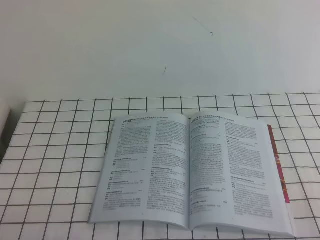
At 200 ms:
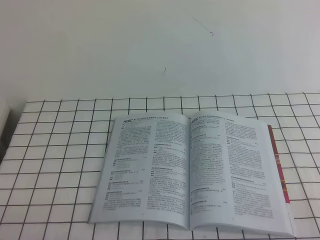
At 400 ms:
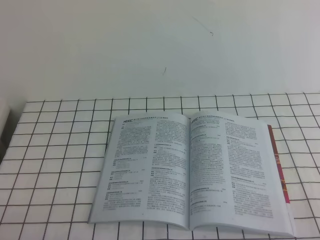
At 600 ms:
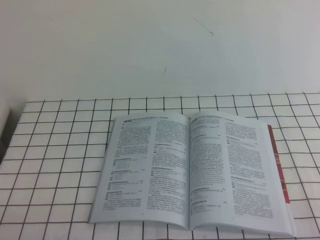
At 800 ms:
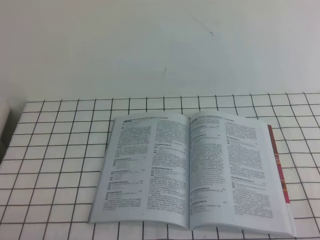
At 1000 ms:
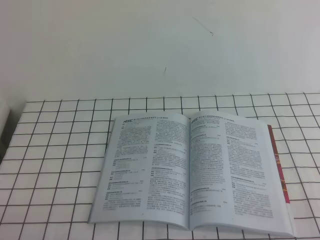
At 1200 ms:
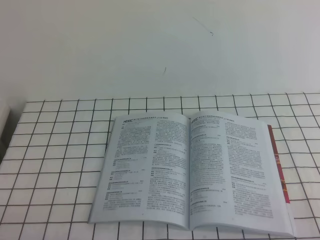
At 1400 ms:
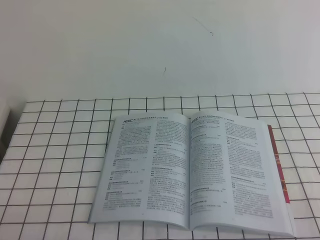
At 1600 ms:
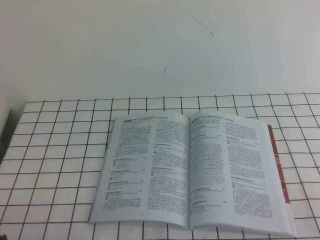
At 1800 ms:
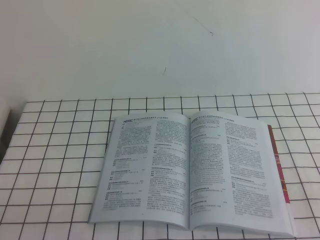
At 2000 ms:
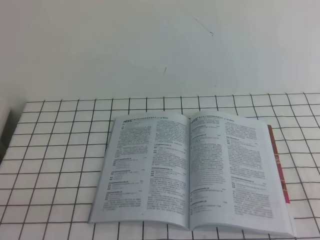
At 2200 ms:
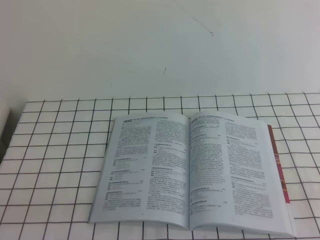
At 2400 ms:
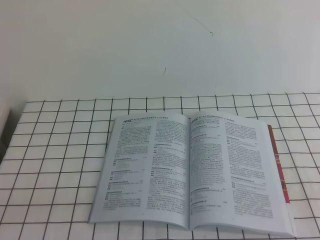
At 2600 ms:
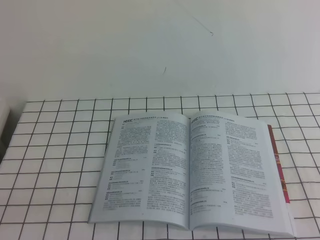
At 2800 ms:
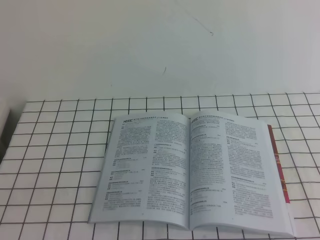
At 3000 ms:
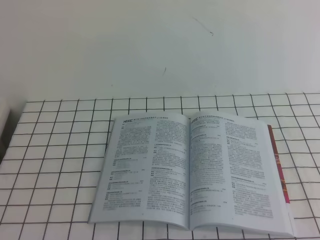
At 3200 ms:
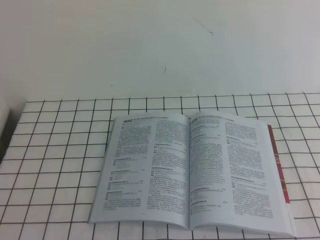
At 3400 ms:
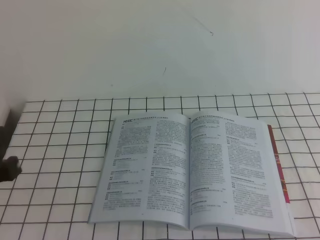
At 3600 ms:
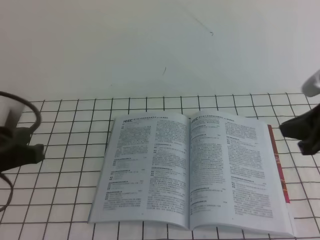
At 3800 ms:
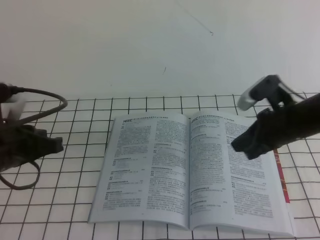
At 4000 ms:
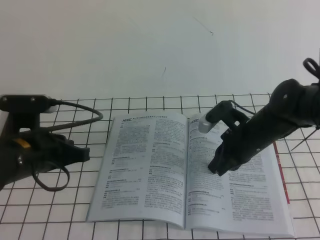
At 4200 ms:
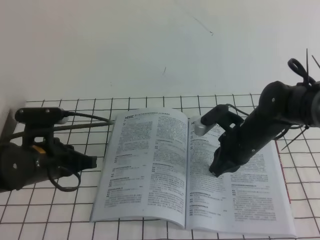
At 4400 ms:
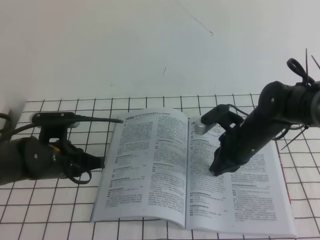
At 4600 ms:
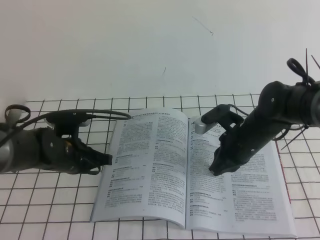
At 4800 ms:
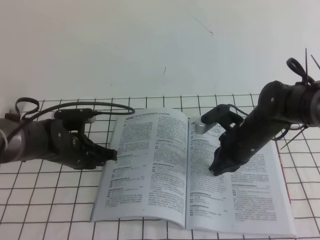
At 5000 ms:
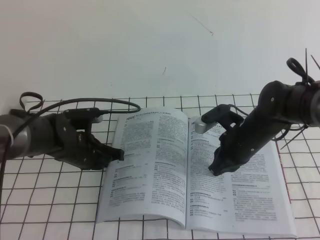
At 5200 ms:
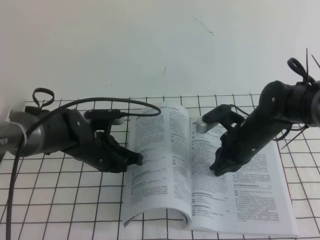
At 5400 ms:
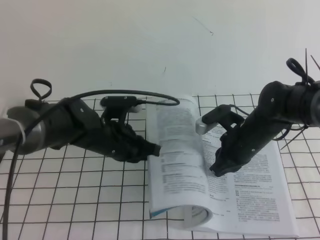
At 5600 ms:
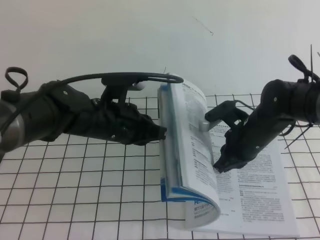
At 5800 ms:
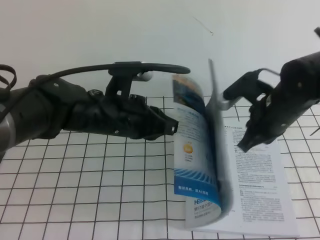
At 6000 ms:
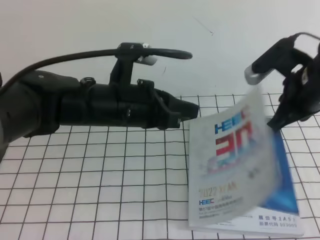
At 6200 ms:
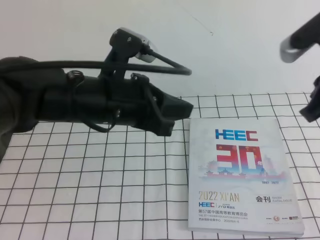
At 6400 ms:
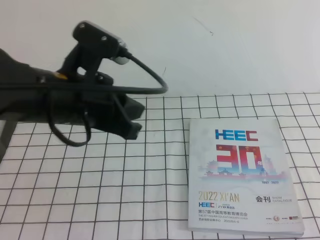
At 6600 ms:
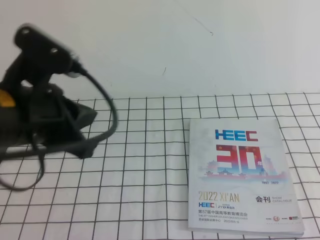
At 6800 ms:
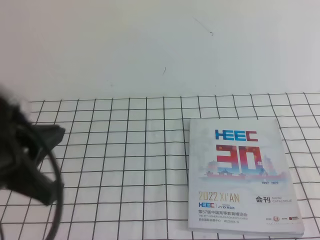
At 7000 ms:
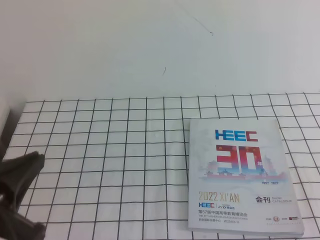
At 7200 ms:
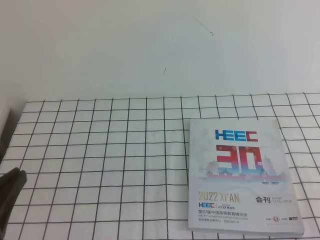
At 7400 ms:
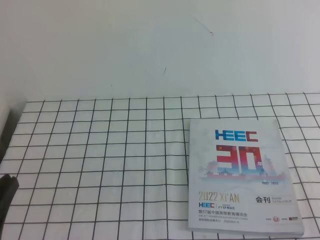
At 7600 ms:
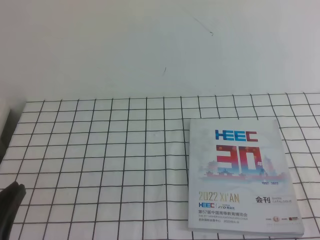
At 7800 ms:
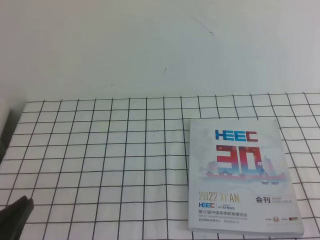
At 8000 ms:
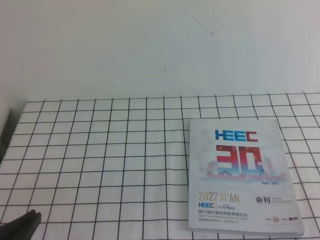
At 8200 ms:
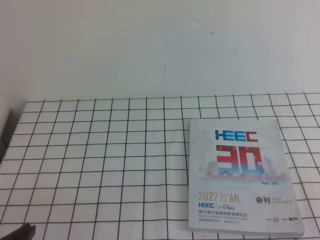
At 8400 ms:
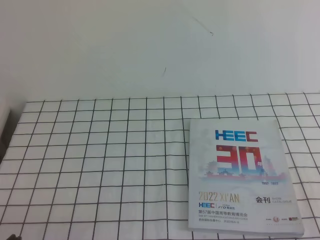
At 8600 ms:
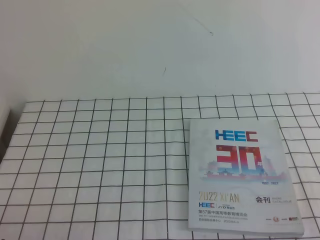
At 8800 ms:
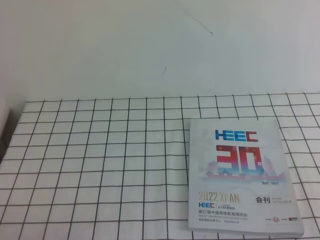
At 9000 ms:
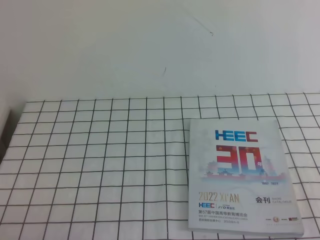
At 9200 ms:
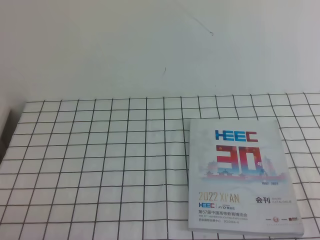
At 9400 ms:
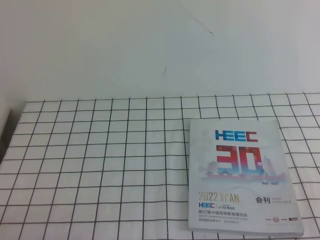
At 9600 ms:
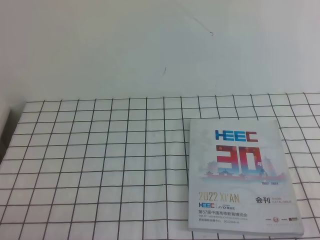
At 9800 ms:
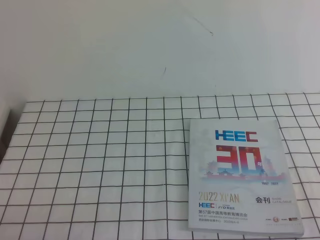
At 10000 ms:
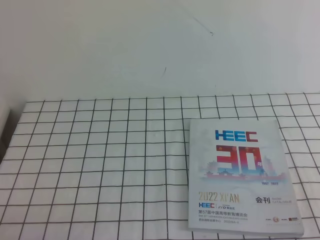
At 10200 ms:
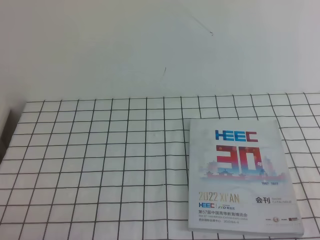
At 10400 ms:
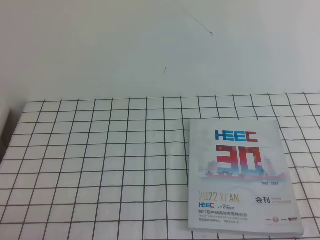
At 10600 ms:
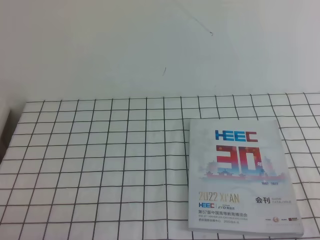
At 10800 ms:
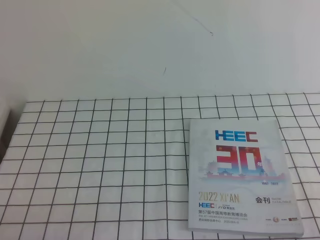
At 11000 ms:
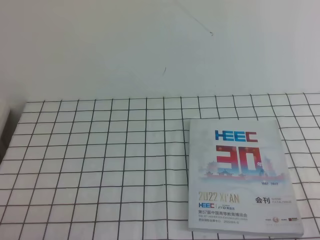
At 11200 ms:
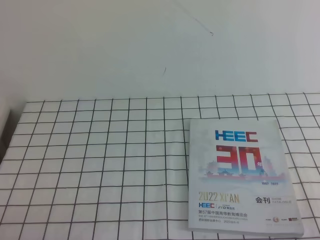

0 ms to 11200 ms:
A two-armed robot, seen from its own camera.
Task of the whole recording: on the white tablecloth, hold the book with one hand and close it with the other.
Step, 0 ms to 11200 ms: Close the open book.
3200 ms to 4800 ms: The left gripper is displaced forward and downward by approximately 35 cm. Meanwhile the right gripper heads forward, downward and to the left, covering approximately 40 cm.
4800 ms to 6400 ms: The right gripper heads upward, backward and to the right, covering approximately 25 cm; the left gripper goes about 20 cm upward, to the right and backward.
6400 ms to 8000 ms: The left gripper moves backward, to the left and downward, about 25 cm. The right gripper moves backward and downward, about 25 cm.
8000 ms to 9600 ms: The left gripper heads downward, covering about 5 cm.
